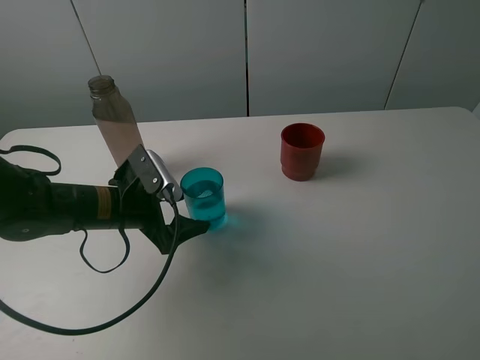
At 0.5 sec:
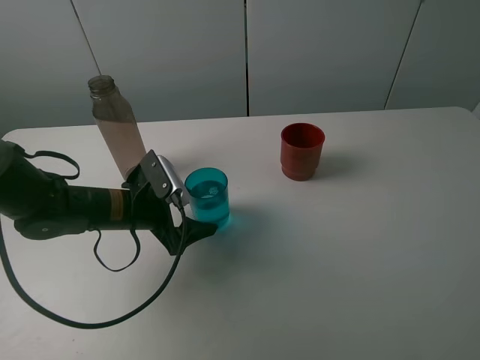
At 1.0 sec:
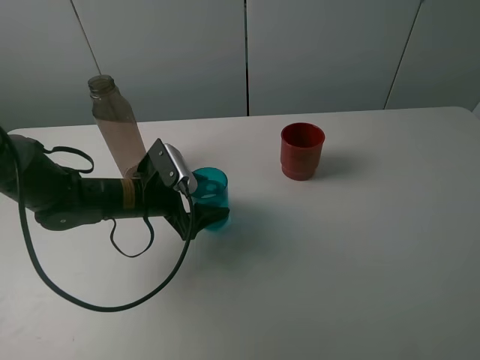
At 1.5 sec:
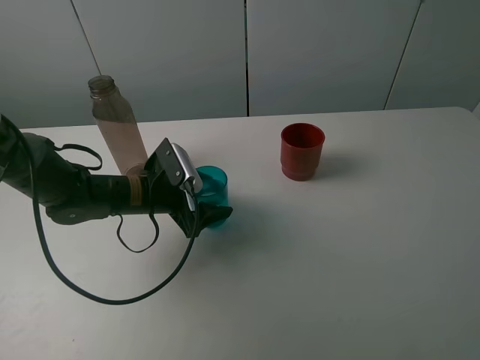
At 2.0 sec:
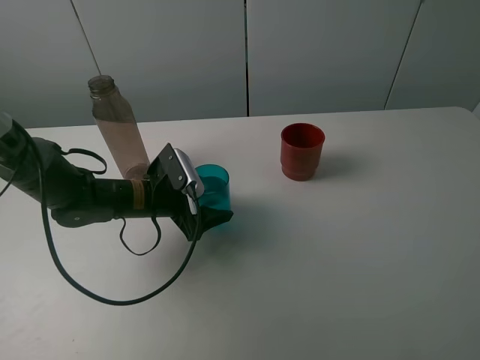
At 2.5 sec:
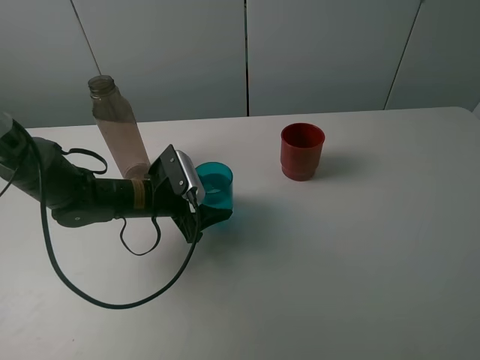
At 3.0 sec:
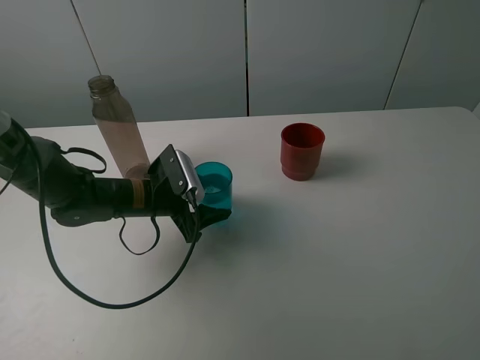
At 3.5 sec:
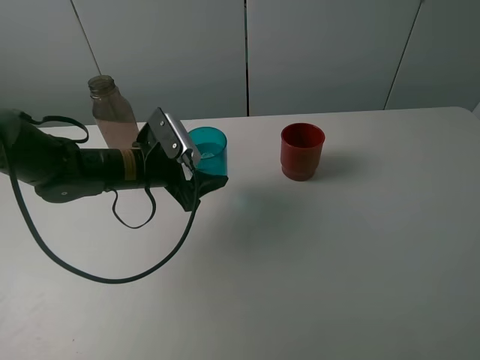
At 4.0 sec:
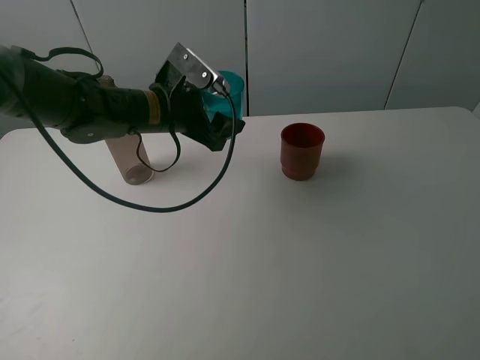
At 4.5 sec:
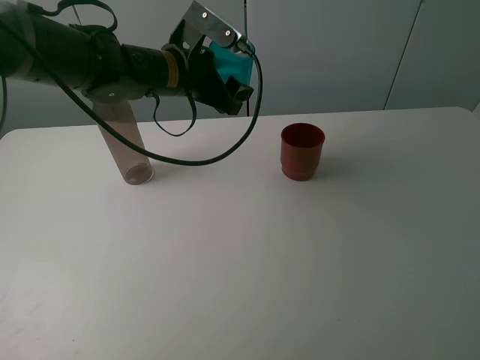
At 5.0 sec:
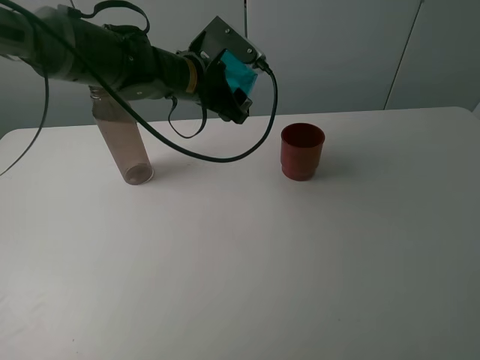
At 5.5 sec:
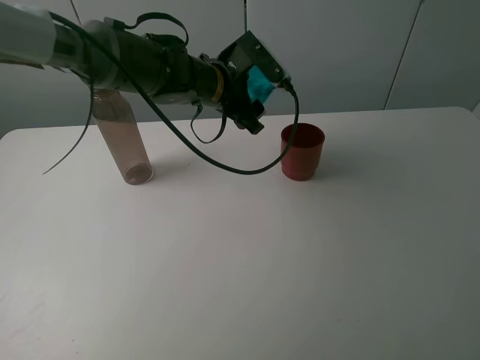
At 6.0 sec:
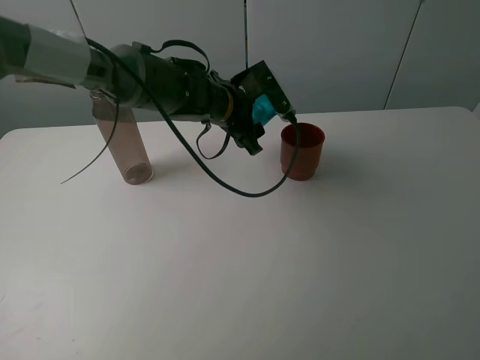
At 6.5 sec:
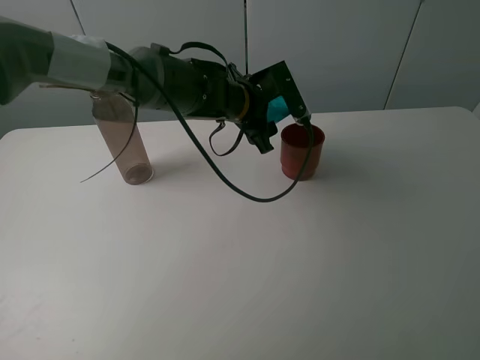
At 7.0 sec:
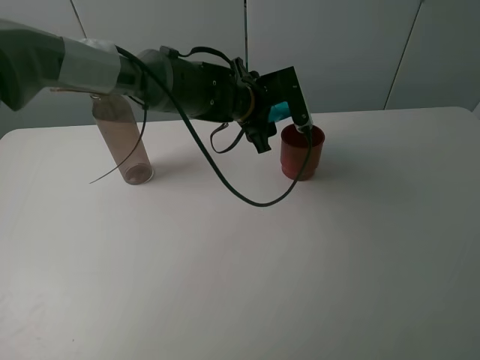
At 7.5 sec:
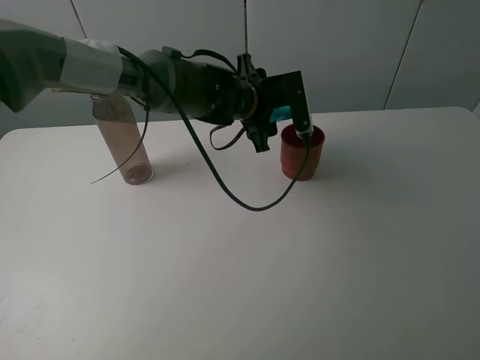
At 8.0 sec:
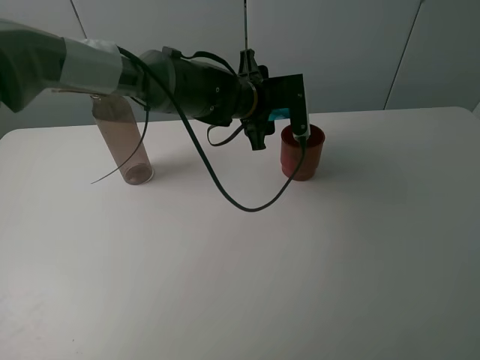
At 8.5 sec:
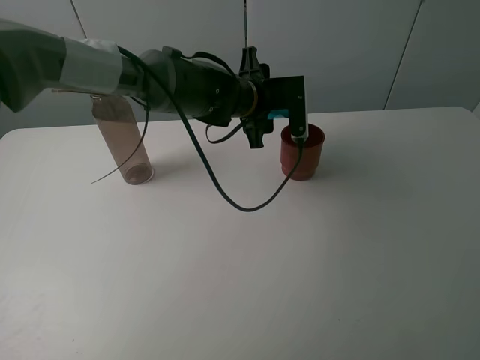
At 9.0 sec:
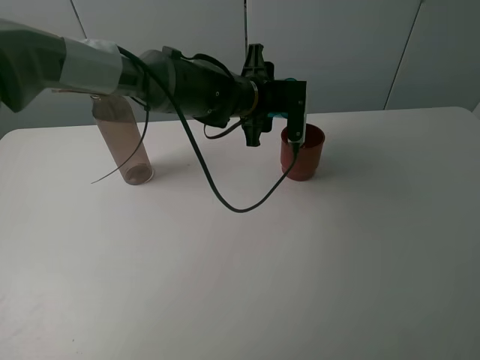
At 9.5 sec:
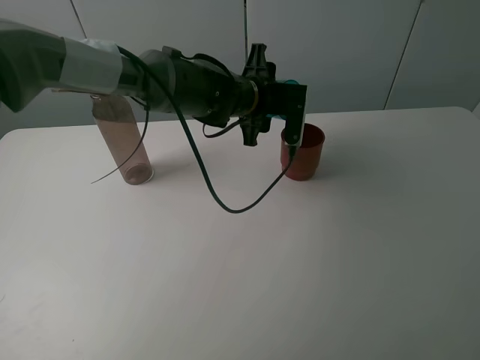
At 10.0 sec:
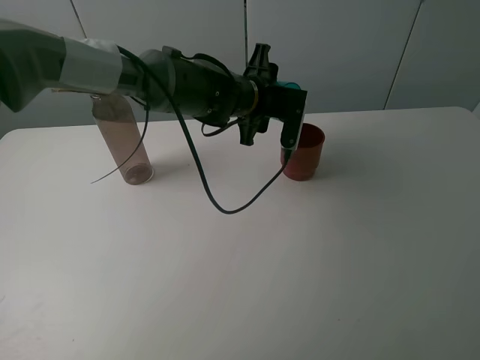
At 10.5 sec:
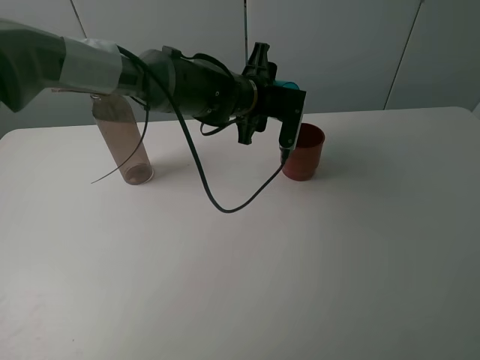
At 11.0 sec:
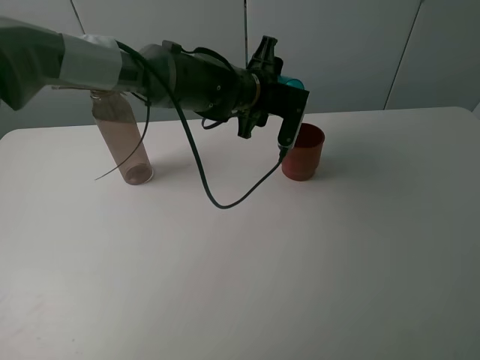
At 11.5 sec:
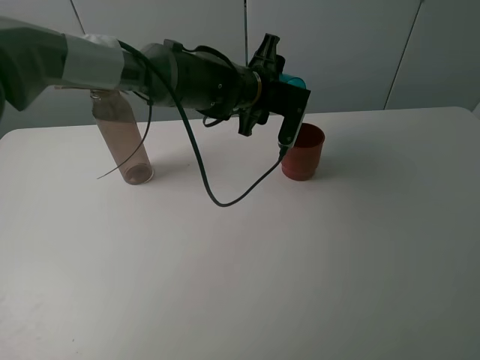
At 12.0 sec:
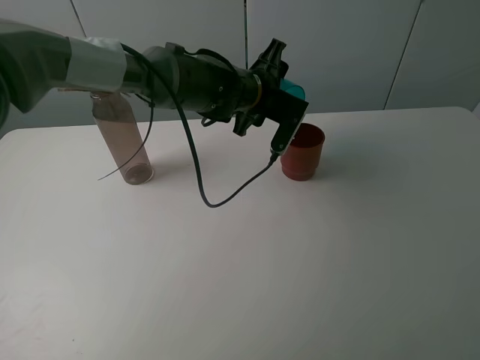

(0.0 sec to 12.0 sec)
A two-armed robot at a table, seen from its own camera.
Task of the whole recording: pick up the bottle and pour water into the cup, then pick up the cup containing water and pour it into another cup.
0.0 sec - 2.0 sec: The left gripper changes place by roughly 5 cm.
2.0 sec - 4.0 sec: The left gripper is displaced upward and forward by some 15 cm, and closes up.
4.0 sec - 6.0 sec: The left gripper is displaced to the right by approximately 10 cm.
8.0 sec - 10.0 sec: There are only small adjustments of the grippers.
10.0 sec - 12.0 sec: The grippers make only small movements.

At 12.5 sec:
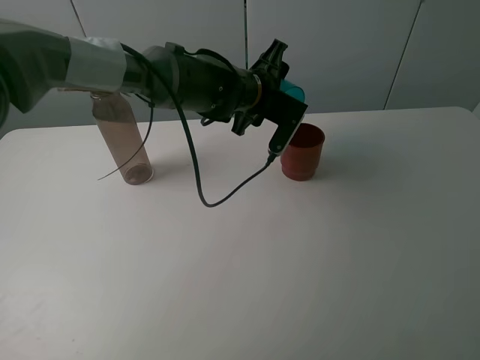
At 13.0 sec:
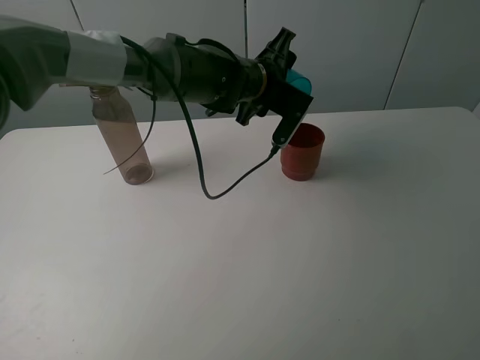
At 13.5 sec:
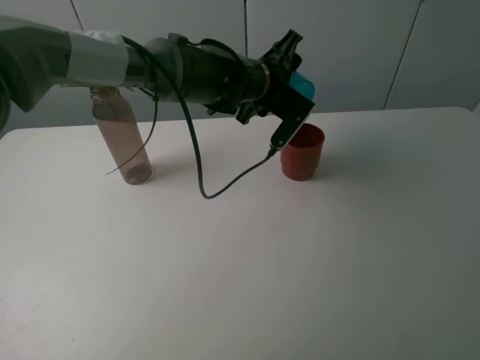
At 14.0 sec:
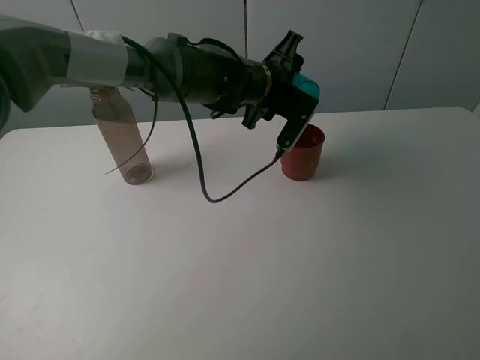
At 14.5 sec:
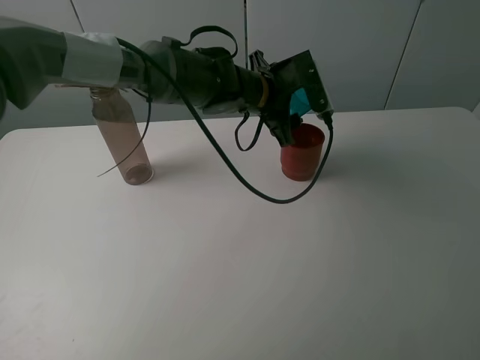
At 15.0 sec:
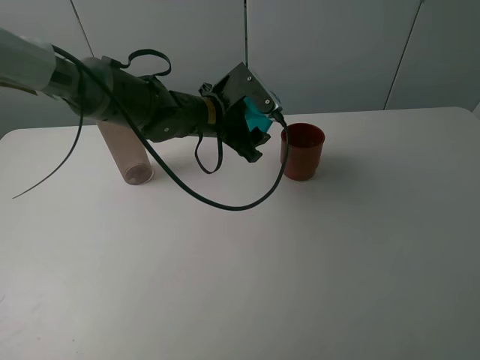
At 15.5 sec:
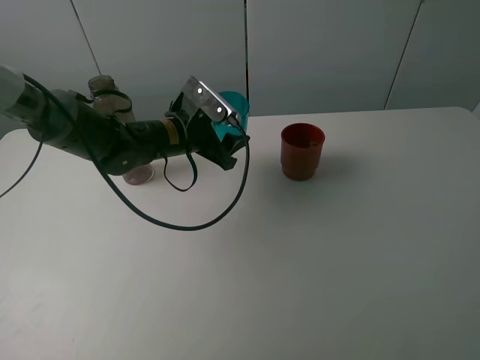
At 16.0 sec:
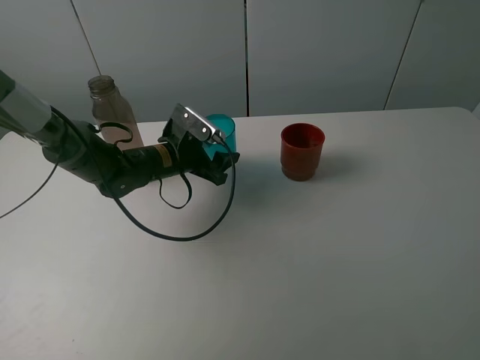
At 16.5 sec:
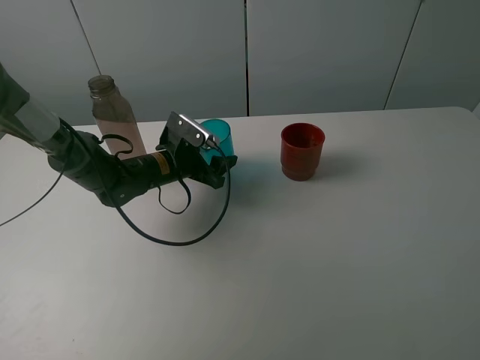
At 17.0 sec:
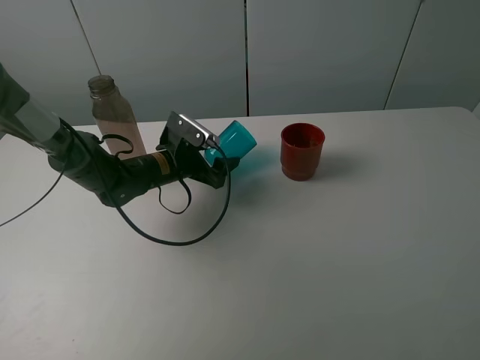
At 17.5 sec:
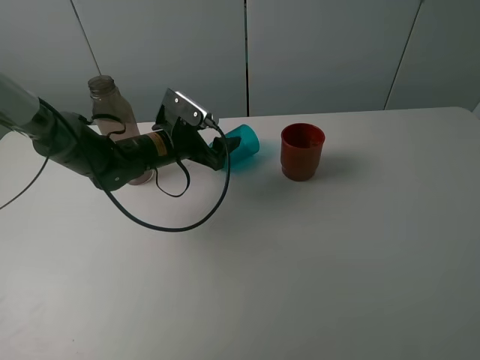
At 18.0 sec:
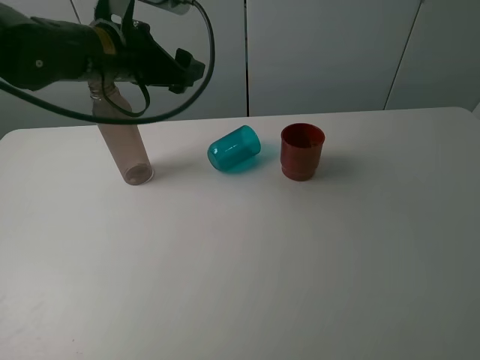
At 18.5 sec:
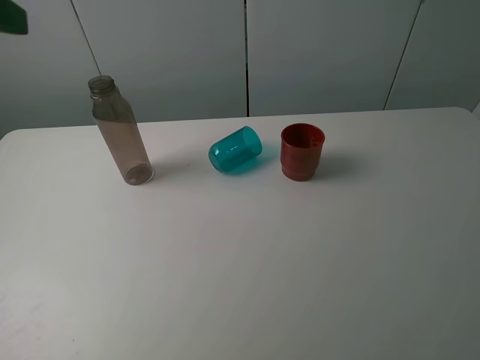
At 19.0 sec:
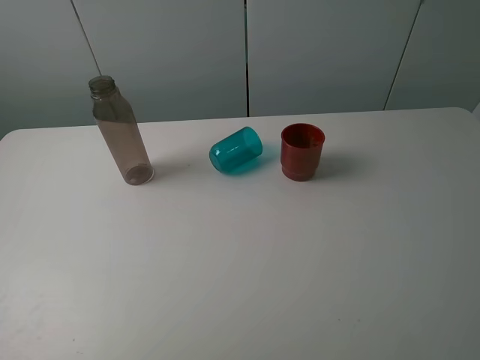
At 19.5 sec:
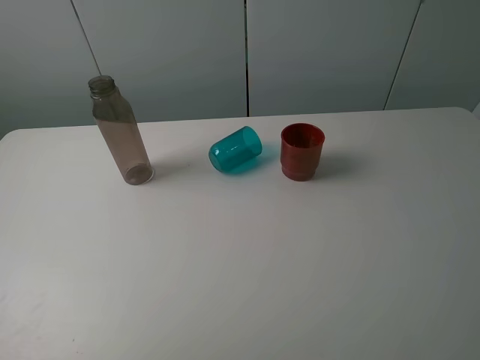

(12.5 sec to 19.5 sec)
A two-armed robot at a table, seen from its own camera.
Task of the whole recording: pick up the bottle and pour water into the cup, then pick up the cup containing water and pour it into another cup.
14.5 sec - 16.0 sec: The left gripper moves to the left and downward, roughly 20 cm.
16.0 sec - 17.5 sec: The left gripper opens up.
17.5 sec - 19.5 sec: The left gripper moves backward, to the left and upward, some 50 cm.
